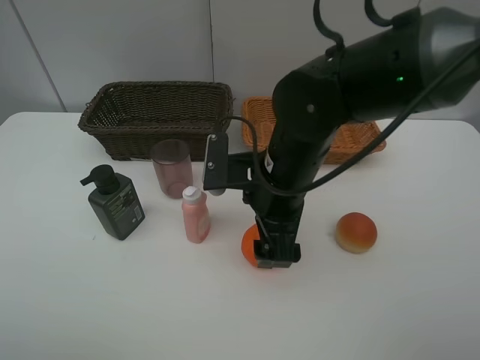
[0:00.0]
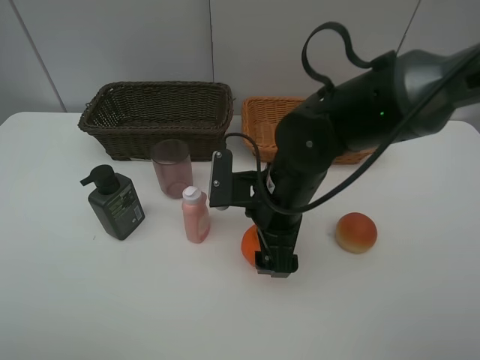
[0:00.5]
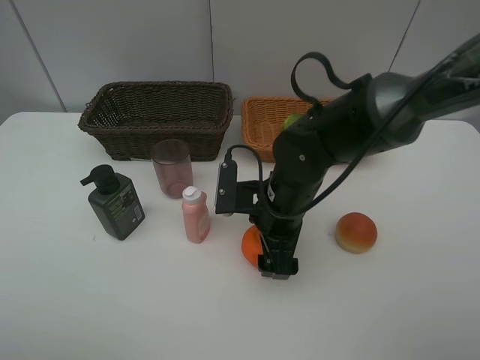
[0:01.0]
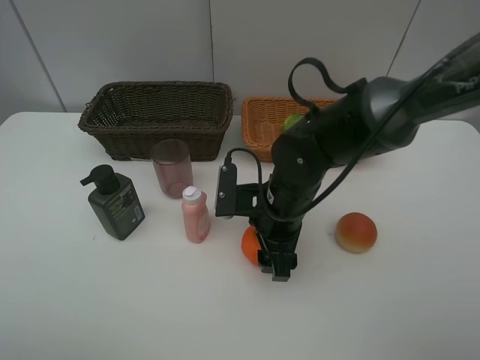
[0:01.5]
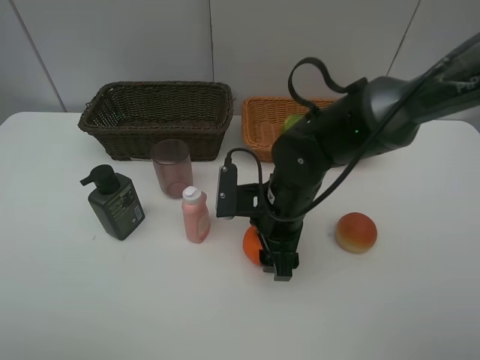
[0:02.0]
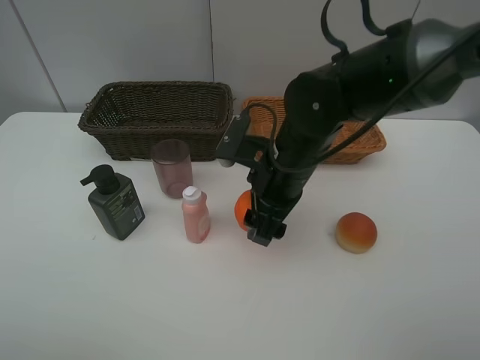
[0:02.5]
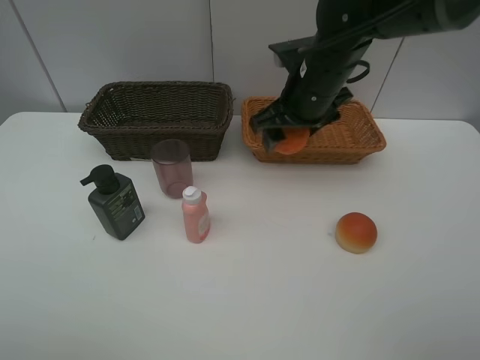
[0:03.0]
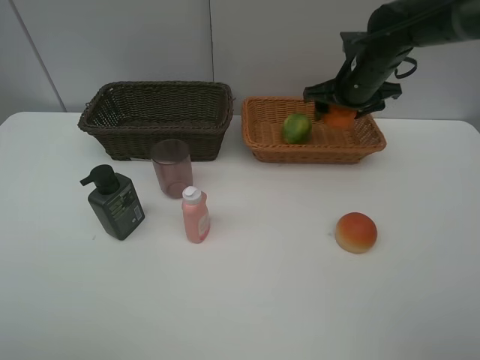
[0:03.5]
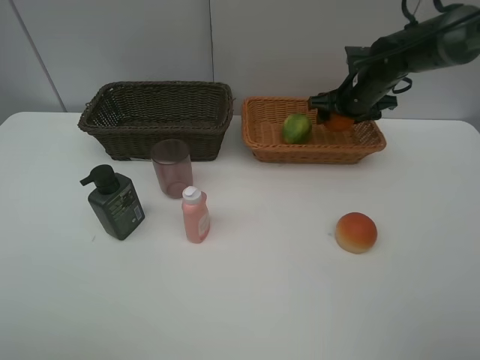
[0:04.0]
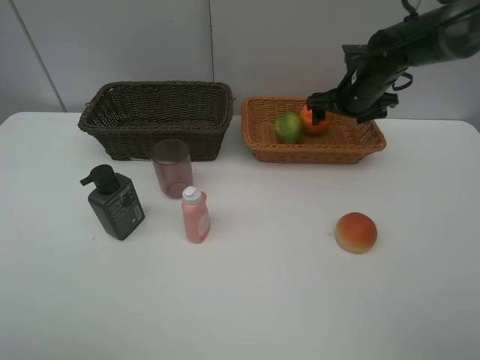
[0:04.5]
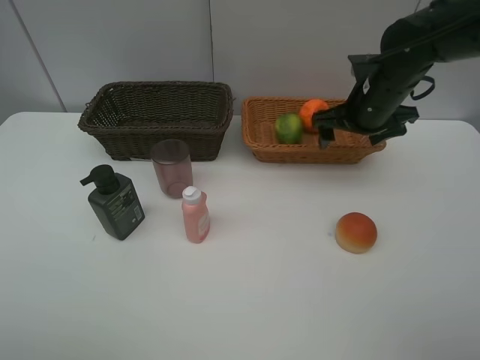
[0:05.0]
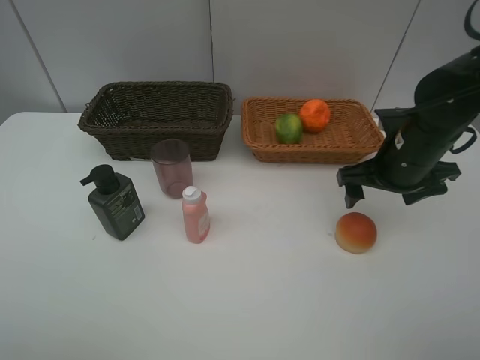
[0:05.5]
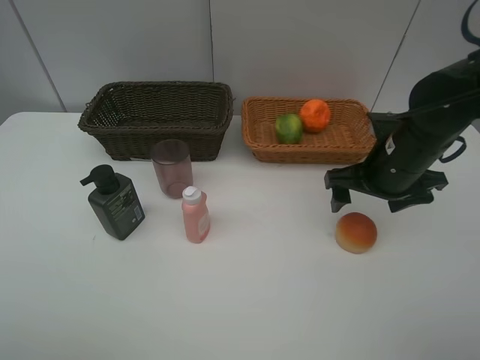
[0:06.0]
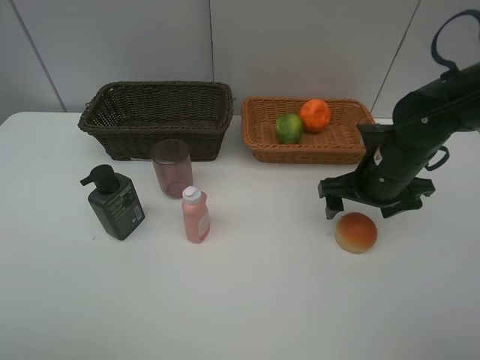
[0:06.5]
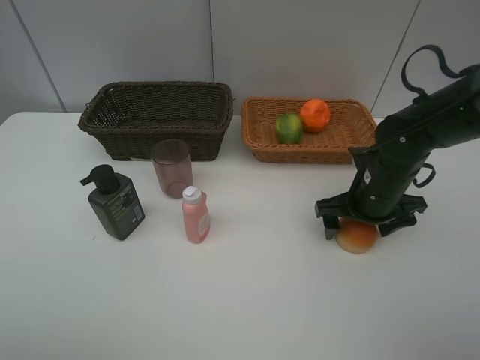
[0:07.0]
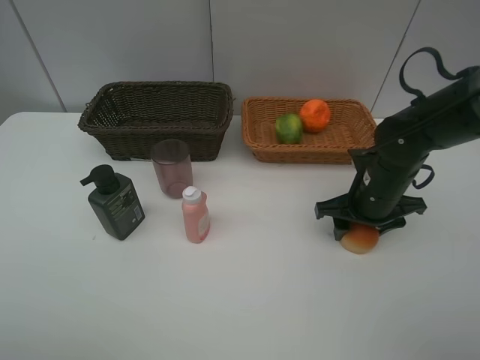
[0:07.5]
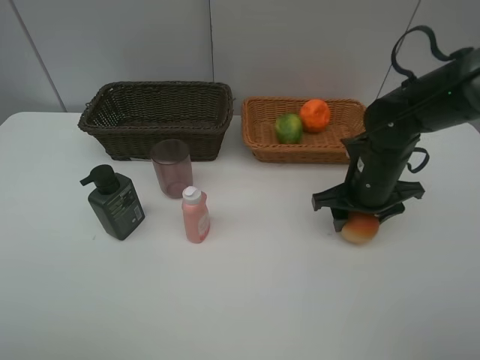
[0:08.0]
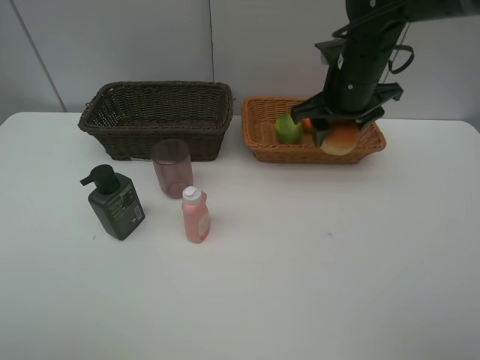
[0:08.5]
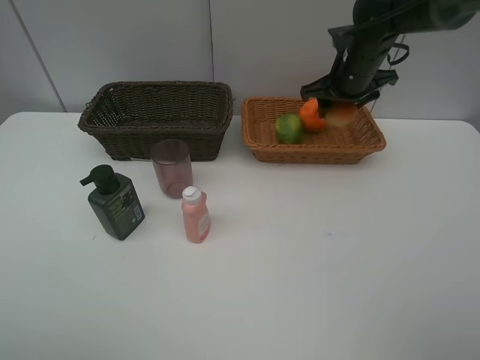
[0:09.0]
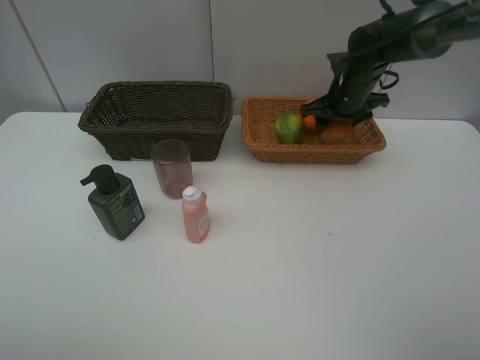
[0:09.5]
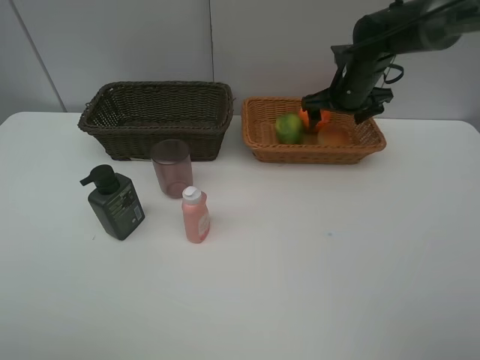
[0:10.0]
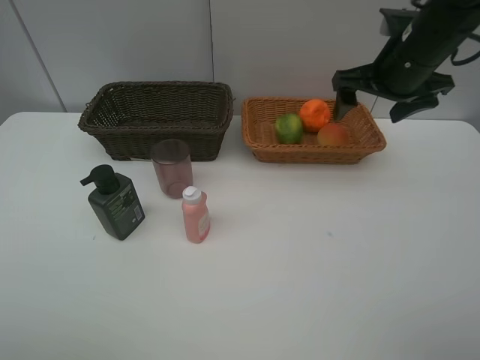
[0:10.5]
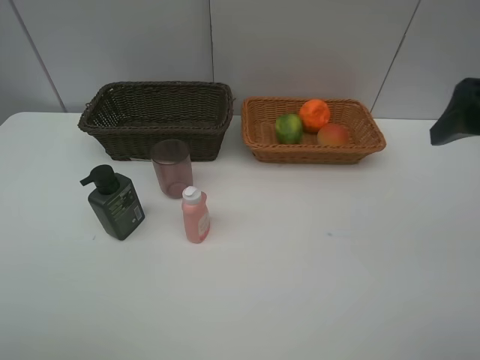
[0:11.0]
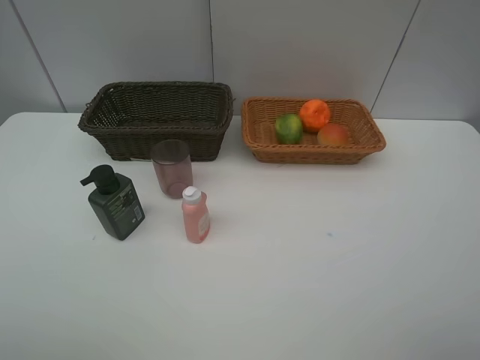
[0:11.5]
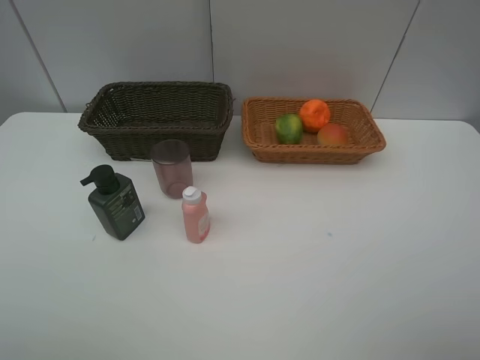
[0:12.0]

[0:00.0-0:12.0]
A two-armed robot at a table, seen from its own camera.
Task of the whole recording: place multiple objects separately in different baskets.
0.0 to 2.0 s: The right gripper goes approximately 5 cm downward, and closes up.
2.0 to 4.0 s: The right gripper moves forward and to the right, roughly 25 cm.
4.0 to 6.0 s: The right gripper heads backward, covering approximately 20 cm, and opens its fingers.
6.0 to 8.0 s: The right gripper closes.
8.0 to 10.0 s: The right gripper goes some 15 cm forward, and opens.
10.0 to 12.0 s: The right gripper moves backward, some 50 cm.

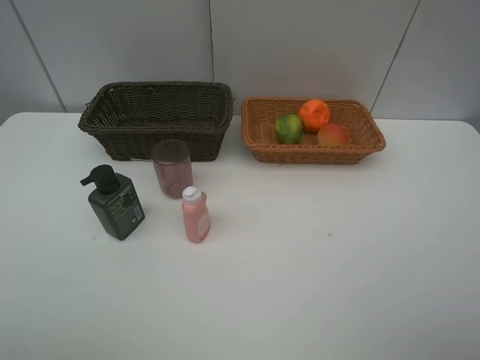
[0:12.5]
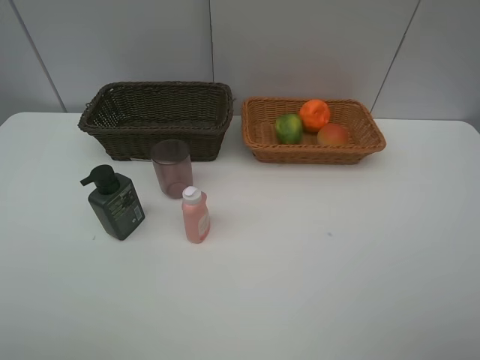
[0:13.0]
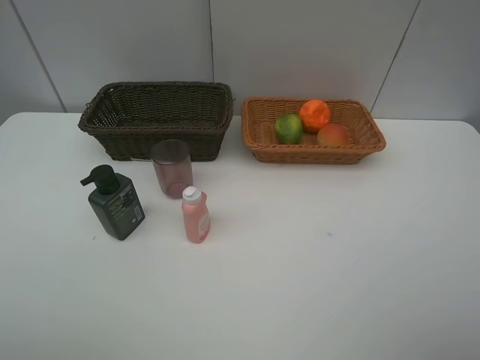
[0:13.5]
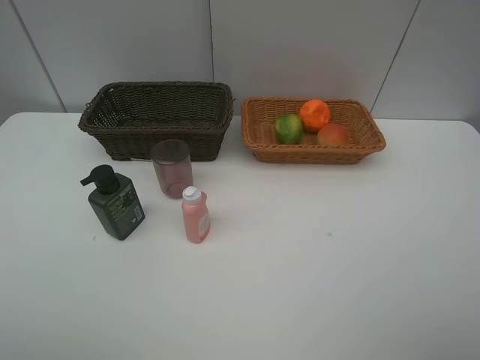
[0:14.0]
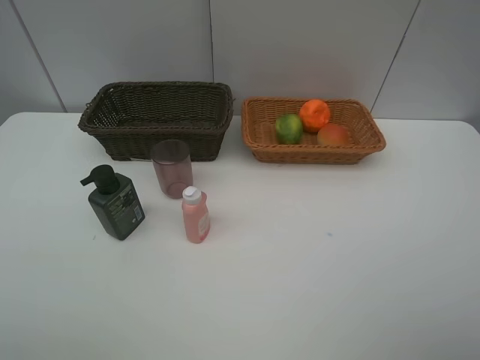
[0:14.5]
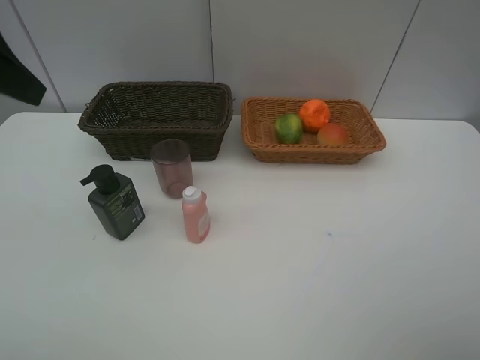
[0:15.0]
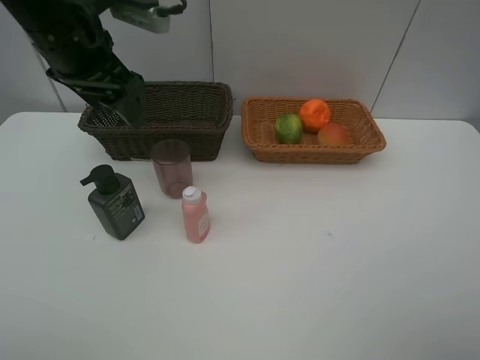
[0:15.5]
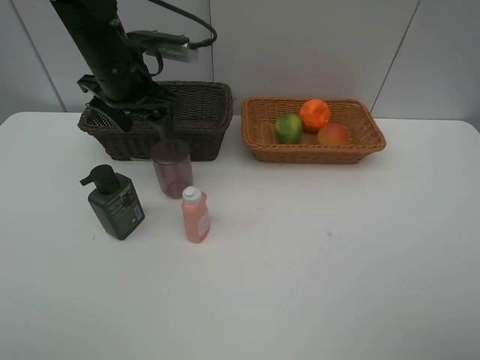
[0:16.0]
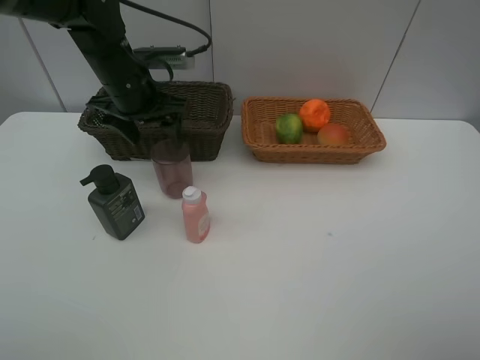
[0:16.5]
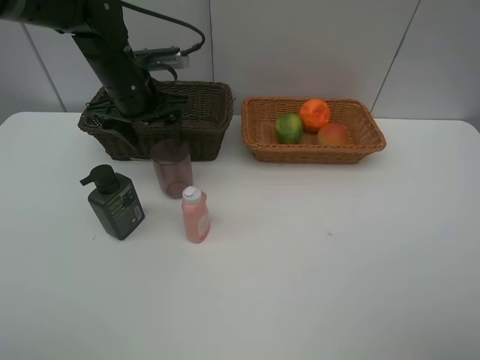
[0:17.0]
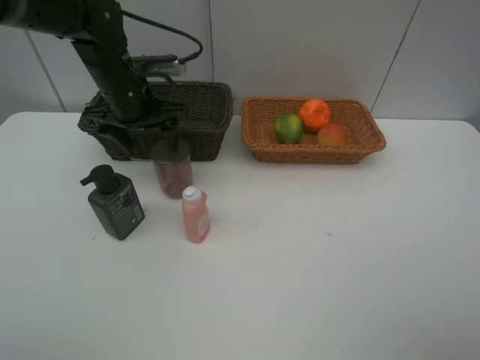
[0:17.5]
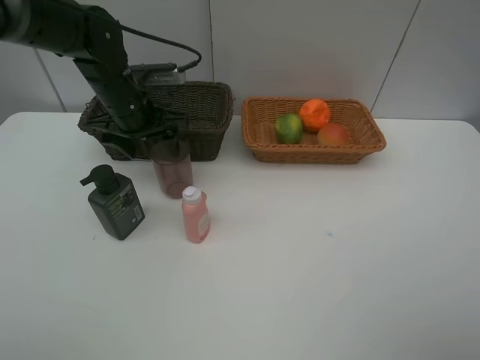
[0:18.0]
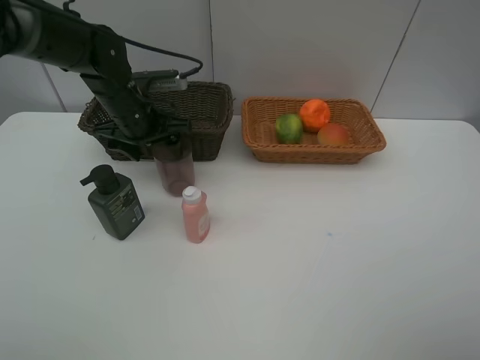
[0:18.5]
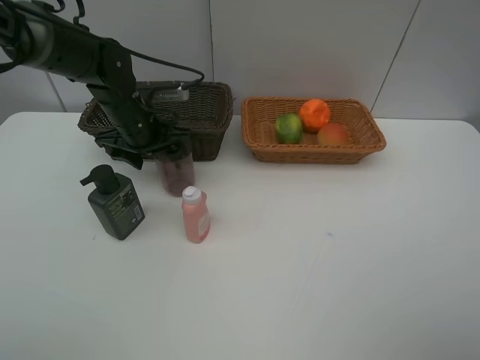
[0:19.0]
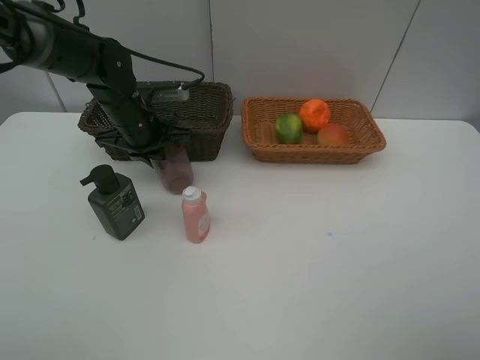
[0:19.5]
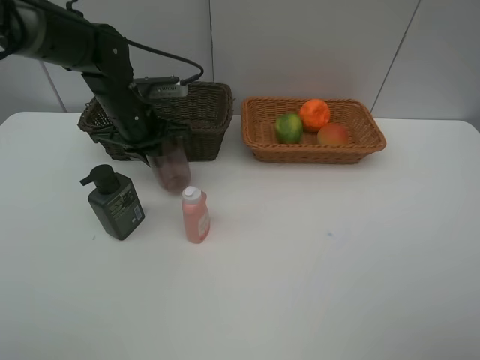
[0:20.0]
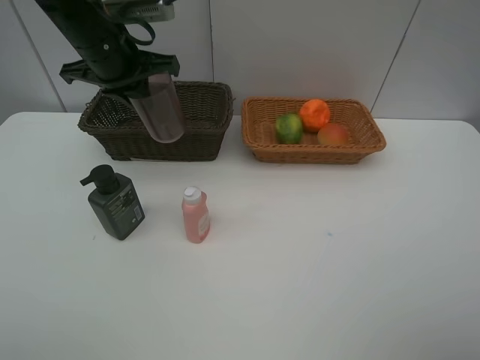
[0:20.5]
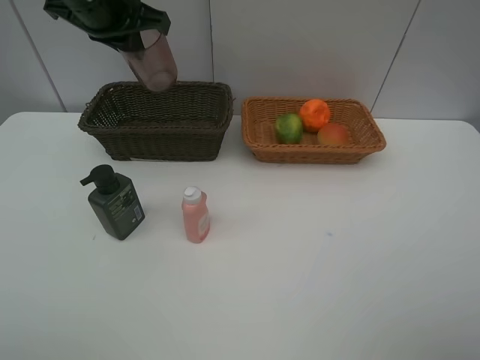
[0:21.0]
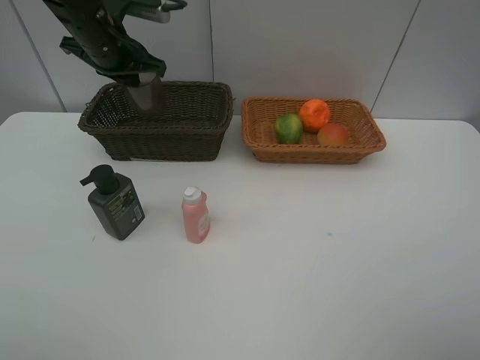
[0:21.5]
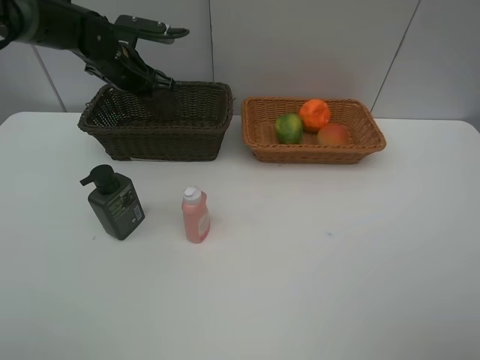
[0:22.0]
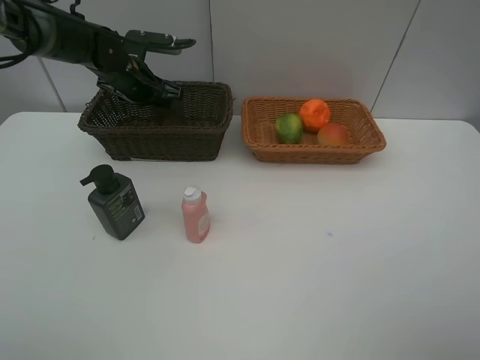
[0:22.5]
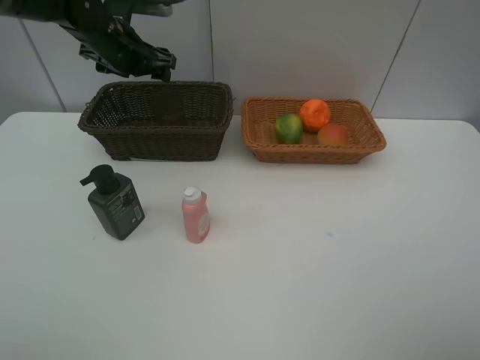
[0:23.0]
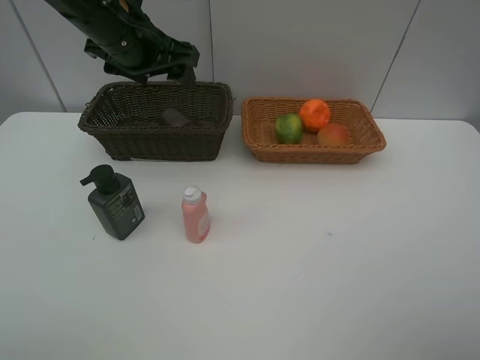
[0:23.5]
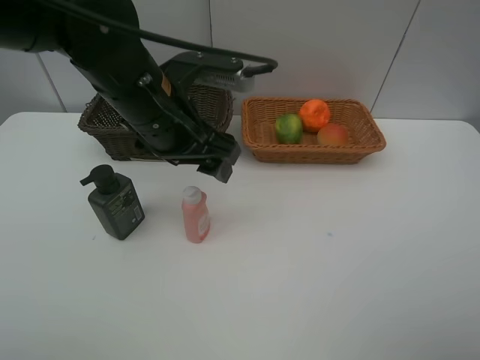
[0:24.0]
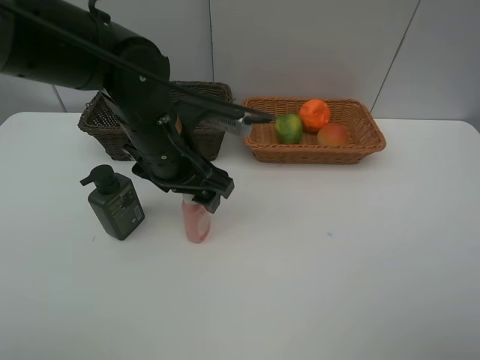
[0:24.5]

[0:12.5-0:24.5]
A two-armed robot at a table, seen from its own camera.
Task of the whole recording: place multiple objects separately in different baskets.
14.5 to 16.5 s: The left gripper heads forward and downward, covering roughly 35 cm.
16.5 to 18.5 s: There are only small adjustments of the grippers.
18.5 to 20.5 s: The left gripper heads upward, covering some 10 cm, and closes.
20.5 to 22.5 s: The left gripper heads downward and forward, covering approximately 15 cm, and opens its fingers.
22.5 to 24.5 s: The left gripper shifts approximately 25 cm backward and to the right.

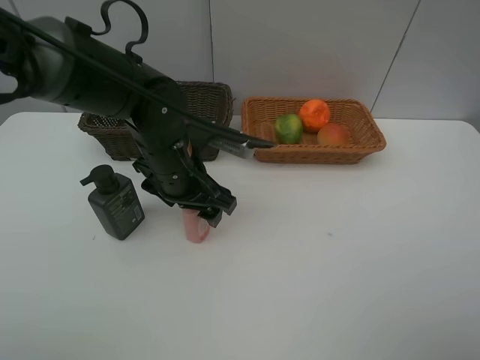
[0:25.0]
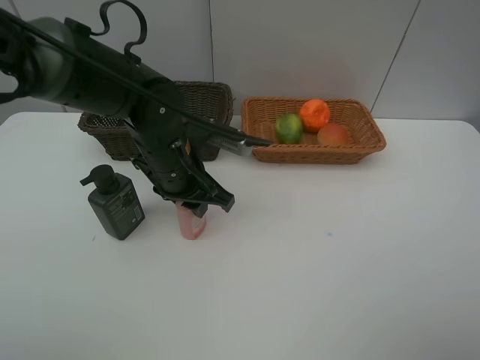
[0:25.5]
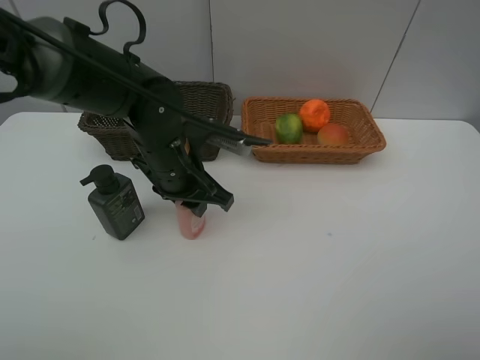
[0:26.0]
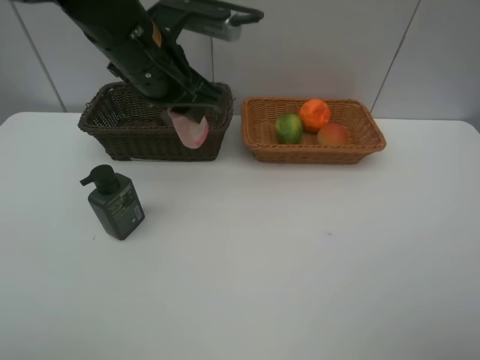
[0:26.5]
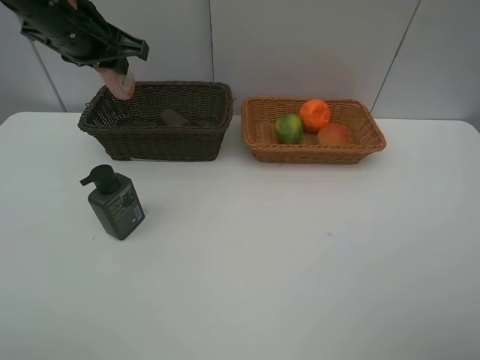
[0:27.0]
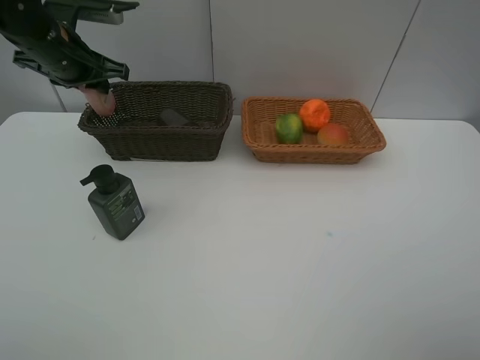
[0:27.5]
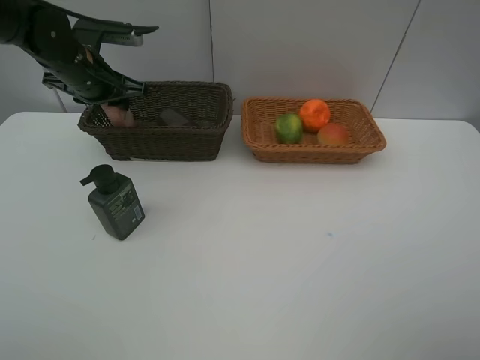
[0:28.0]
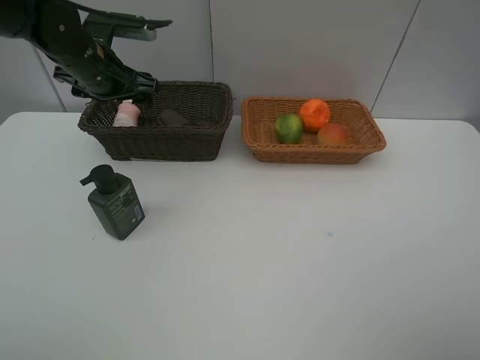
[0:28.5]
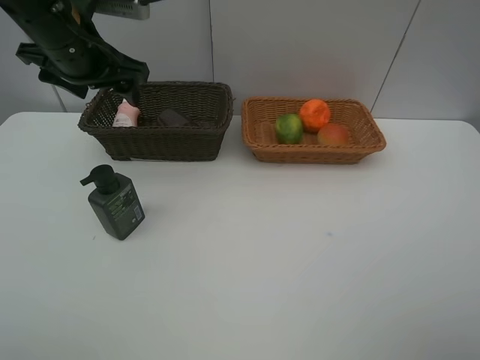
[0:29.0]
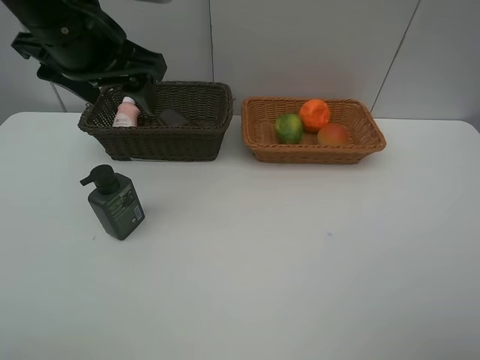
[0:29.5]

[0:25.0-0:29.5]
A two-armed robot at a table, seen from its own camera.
Task of the whole recording: place multiple objects separately in different baskets.
25.0 to 27.0 s: The left gripper shifts about 20 cm upward, to the left and forward, and closes its fingers.
27.0 to 29.5 s: The left gripper is displaced backward and to the right by approximately 10 cm, and opens its fingers.
